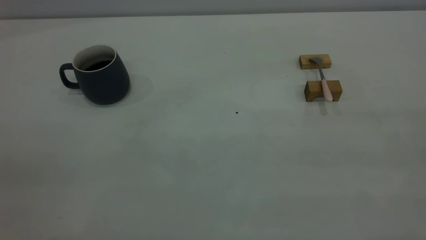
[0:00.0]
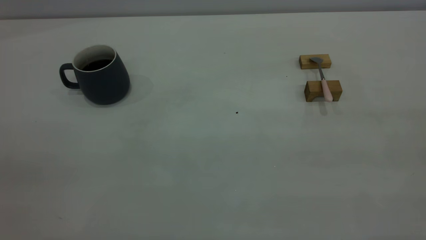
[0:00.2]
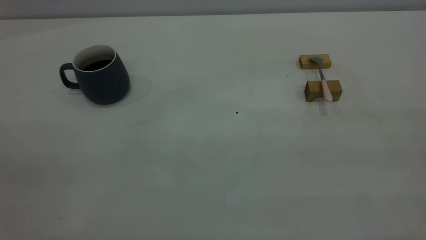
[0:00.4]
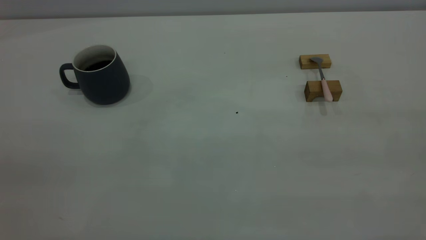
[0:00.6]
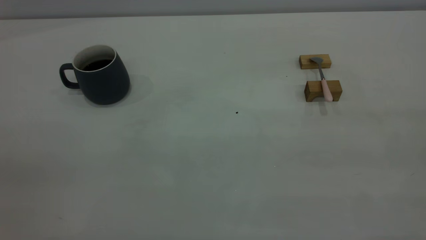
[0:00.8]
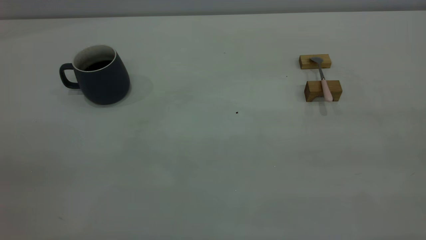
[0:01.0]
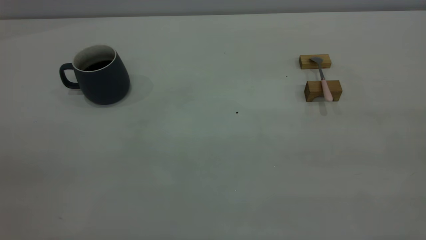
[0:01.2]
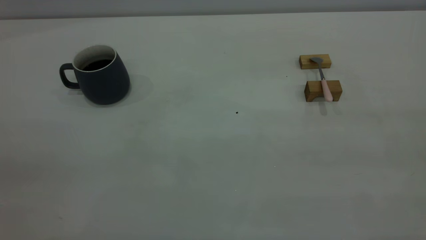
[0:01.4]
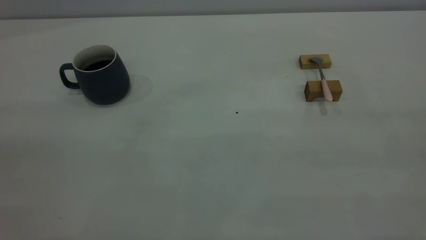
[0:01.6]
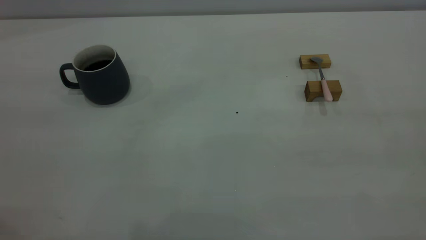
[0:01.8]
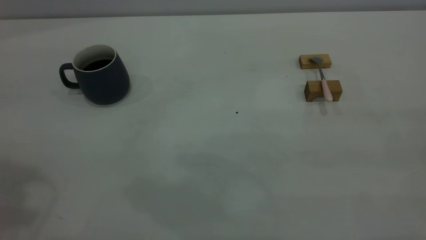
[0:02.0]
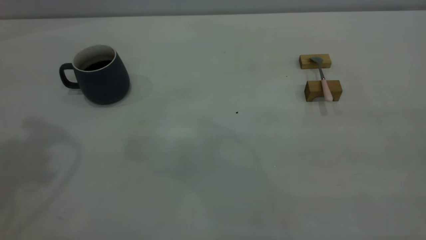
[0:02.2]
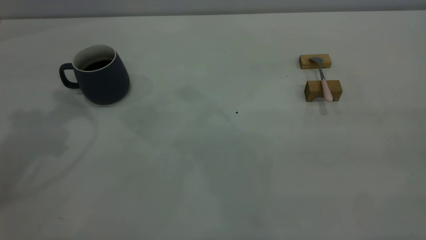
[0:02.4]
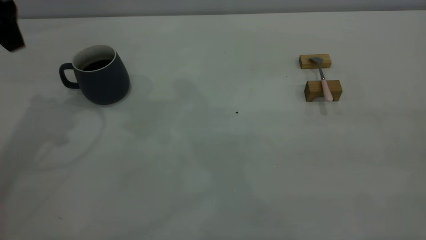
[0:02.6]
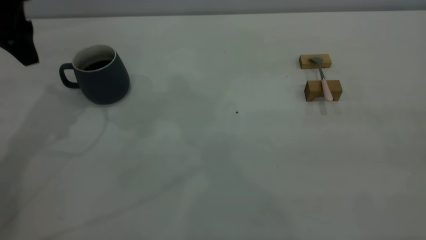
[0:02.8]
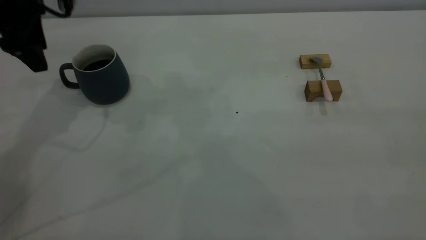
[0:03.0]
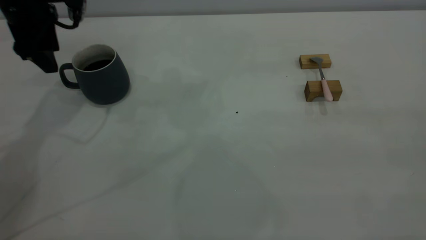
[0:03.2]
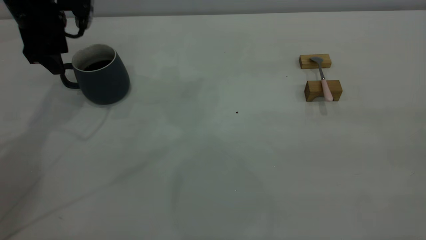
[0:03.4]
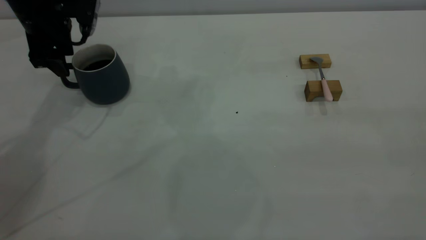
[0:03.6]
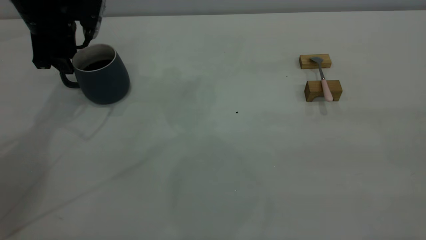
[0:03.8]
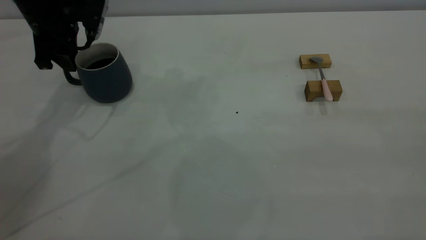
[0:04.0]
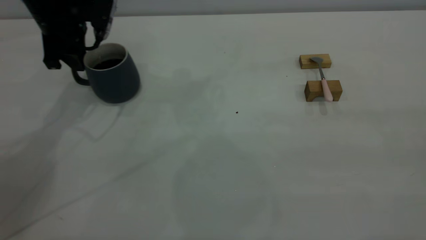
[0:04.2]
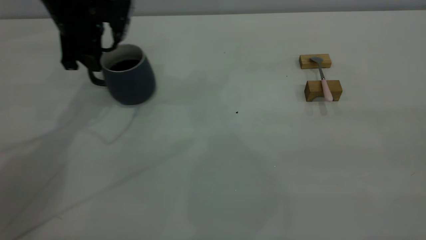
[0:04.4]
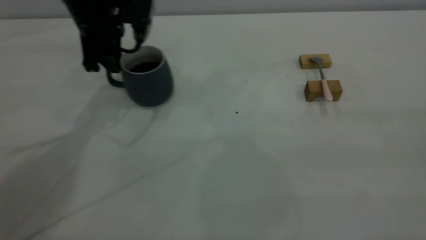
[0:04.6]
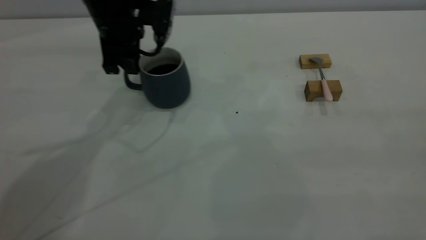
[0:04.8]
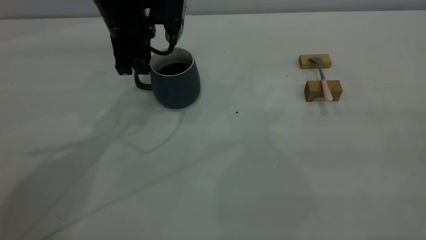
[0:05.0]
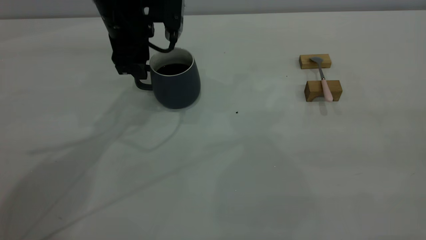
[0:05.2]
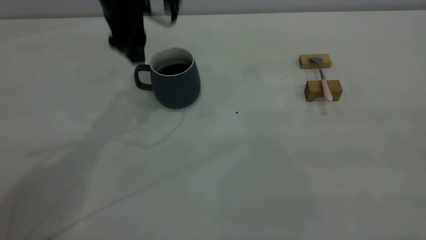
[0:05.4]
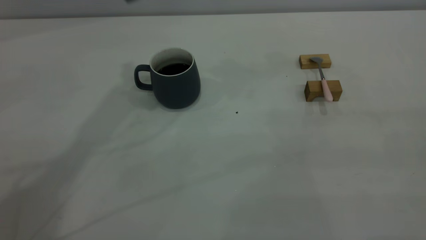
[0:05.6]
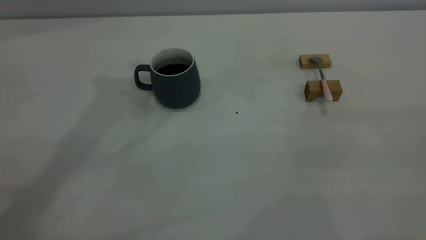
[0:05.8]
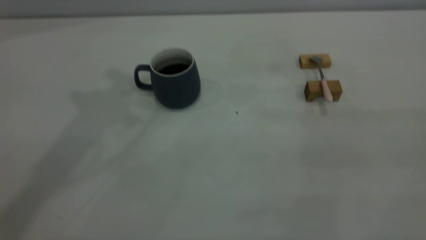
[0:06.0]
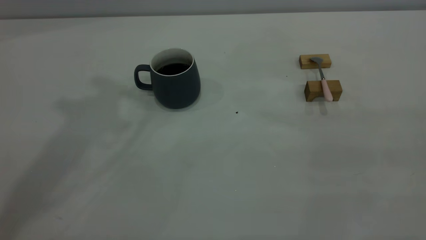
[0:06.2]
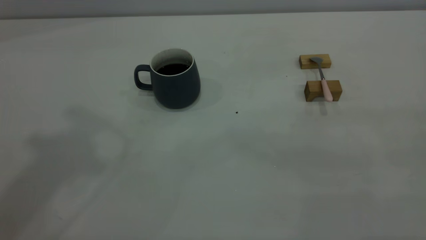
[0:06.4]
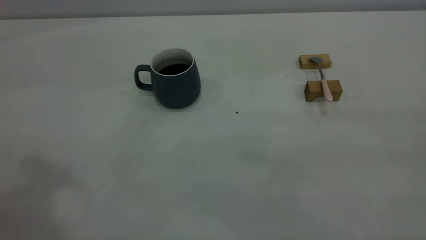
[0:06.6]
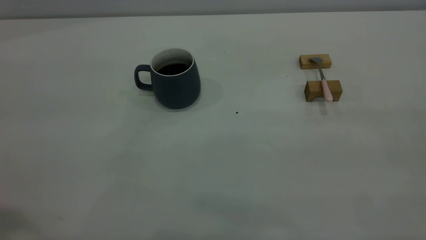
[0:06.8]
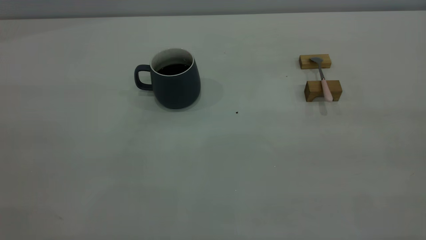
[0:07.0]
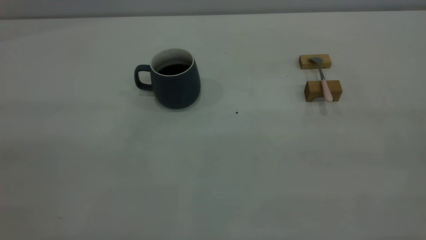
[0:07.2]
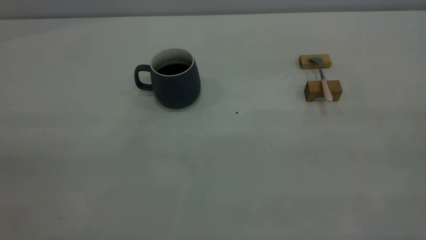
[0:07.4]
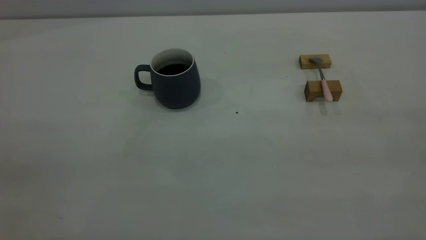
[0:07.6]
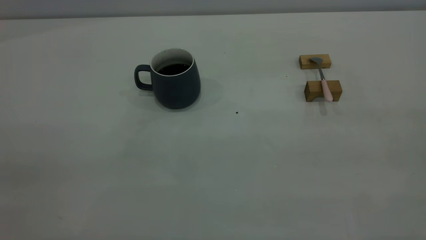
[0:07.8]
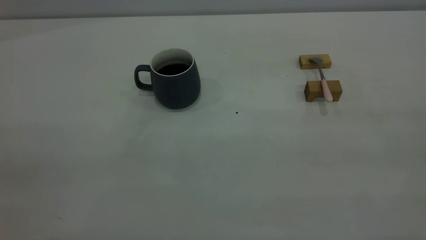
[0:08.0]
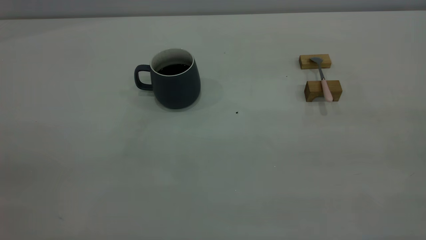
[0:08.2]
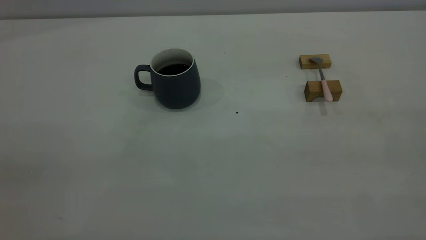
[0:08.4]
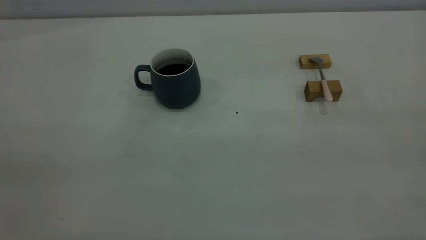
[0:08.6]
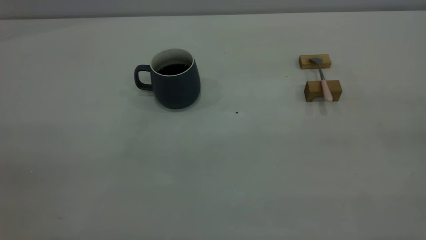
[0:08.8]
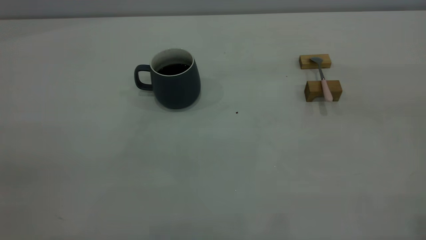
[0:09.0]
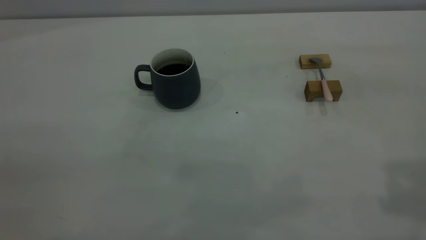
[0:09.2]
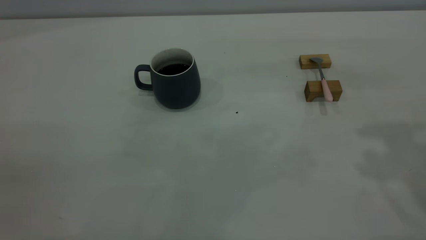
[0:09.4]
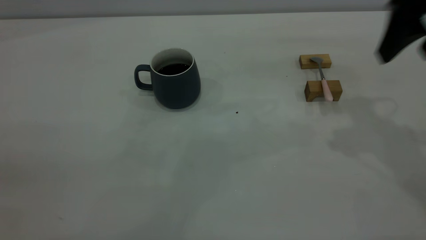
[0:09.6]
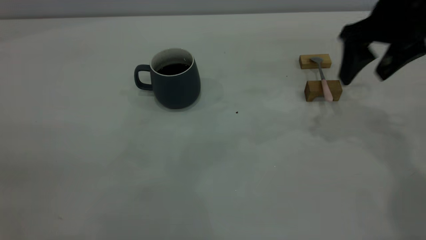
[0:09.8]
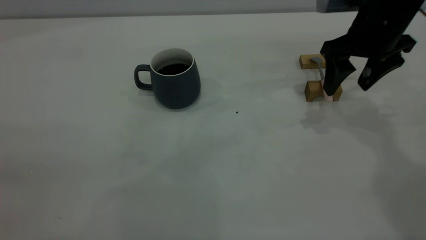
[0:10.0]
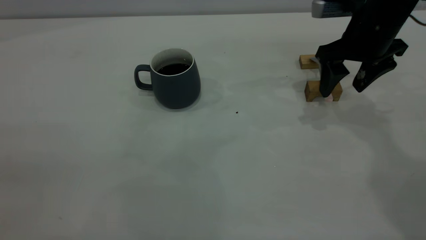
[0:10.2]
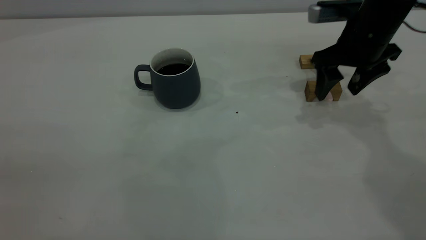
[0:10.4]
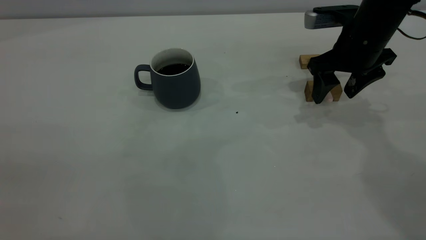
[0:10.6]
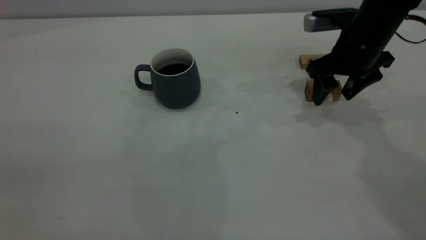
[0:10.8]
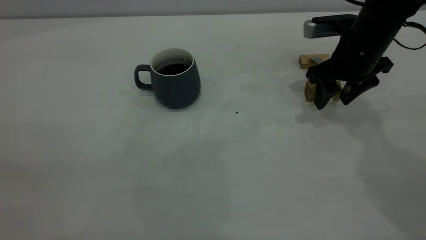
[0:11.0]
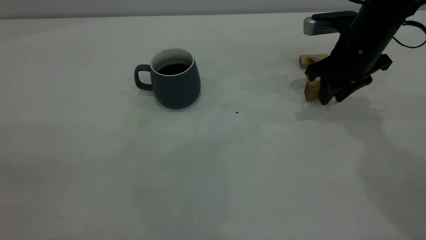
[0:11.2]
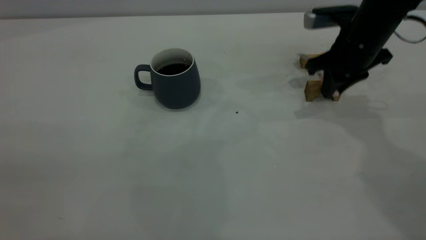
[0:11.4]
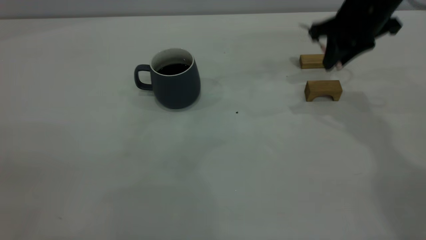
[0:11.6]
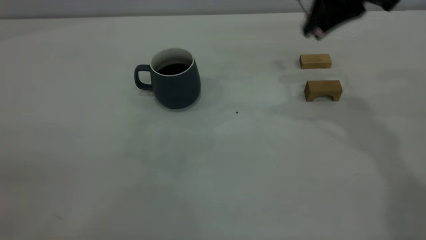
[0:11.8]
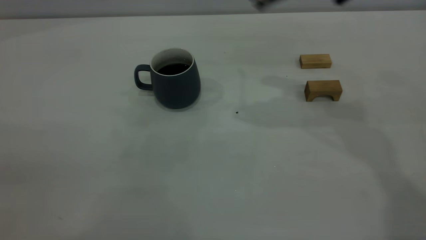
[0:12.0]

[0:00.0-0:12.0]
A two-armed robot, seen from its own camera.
Step, 0:00.0 to 0:05.4: Move the cup with coffee to the center of view.
Step, 0:05.6 to 0:11.6: Pick up the spoon.
0:01.6 to 0:03.0: The left gripper shifts some 40 cm forward and downward, and opens its fingers.
0:03.0 to 0:04.4: The left gripper heads to the right, covering roughly 5 cm, and closes.
0:04.4 to 0:06.0: The left gripper is displaced upward by approximately 30 cm, and opens.
0:09.0 to 0:10.4: The right gripper travels forward and downward by some 40 cm.
0:10.4 to 0:12.0: The right gripper heads upward and to the left, covering some 15 cm, and closes.

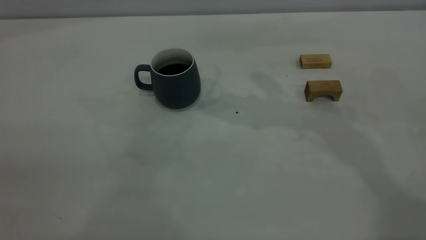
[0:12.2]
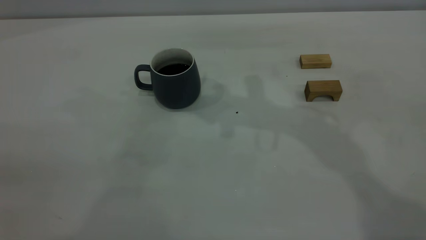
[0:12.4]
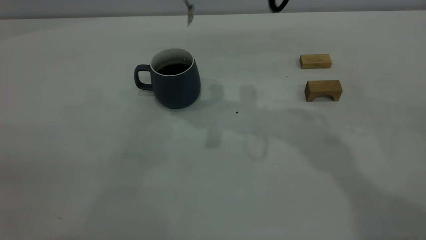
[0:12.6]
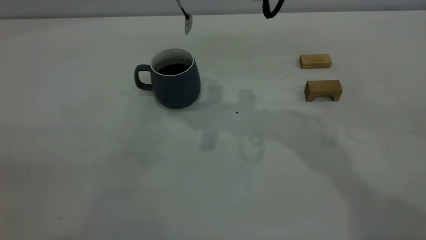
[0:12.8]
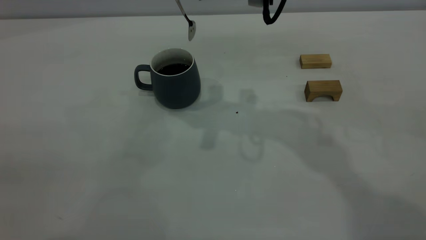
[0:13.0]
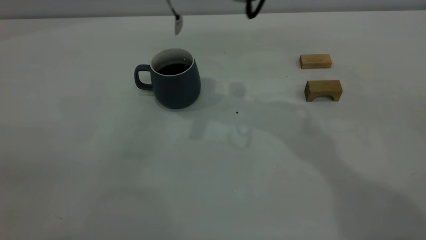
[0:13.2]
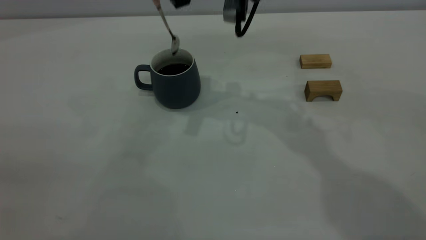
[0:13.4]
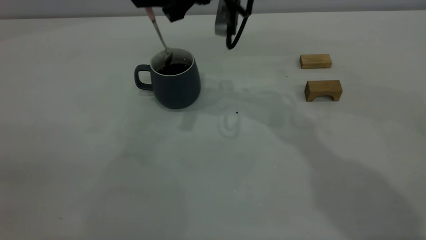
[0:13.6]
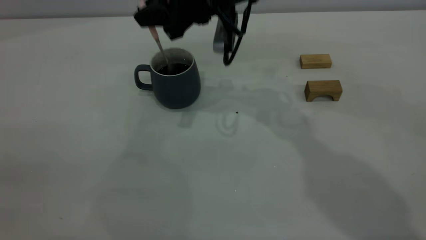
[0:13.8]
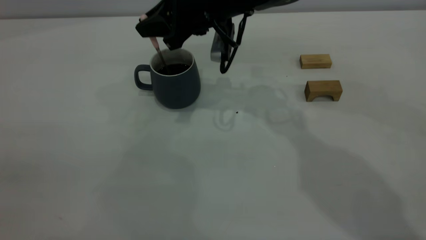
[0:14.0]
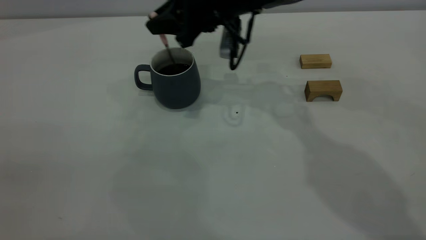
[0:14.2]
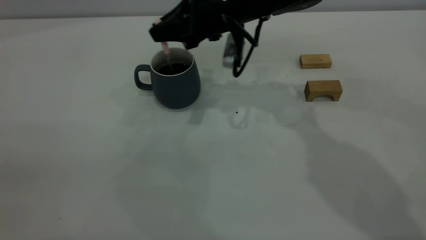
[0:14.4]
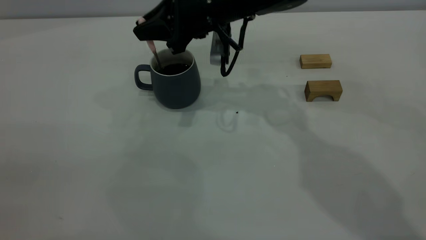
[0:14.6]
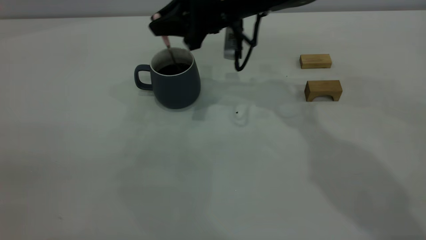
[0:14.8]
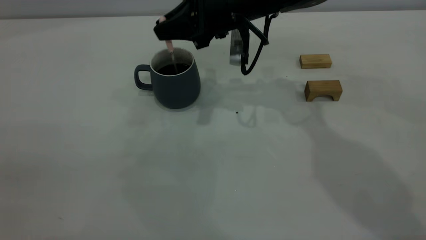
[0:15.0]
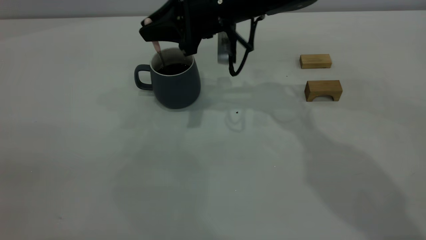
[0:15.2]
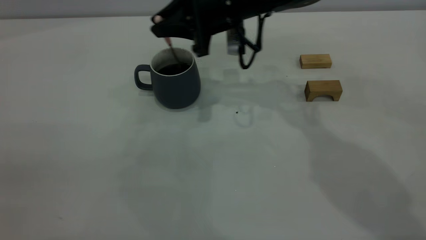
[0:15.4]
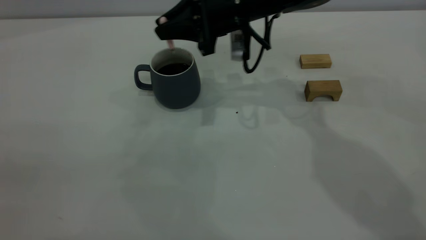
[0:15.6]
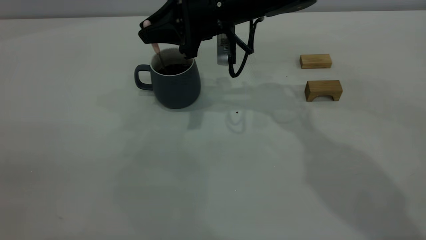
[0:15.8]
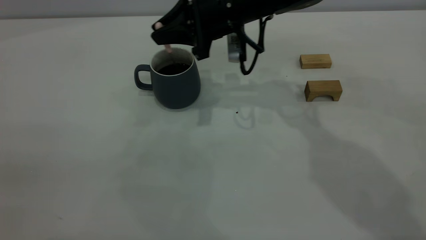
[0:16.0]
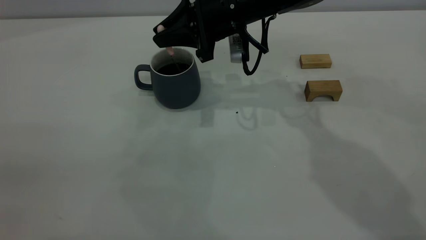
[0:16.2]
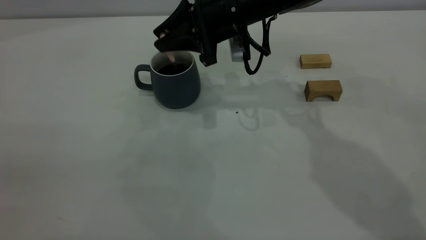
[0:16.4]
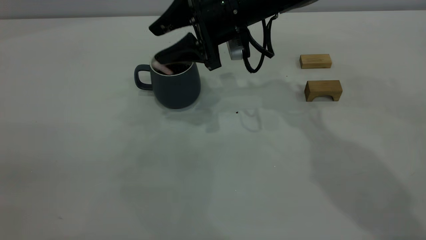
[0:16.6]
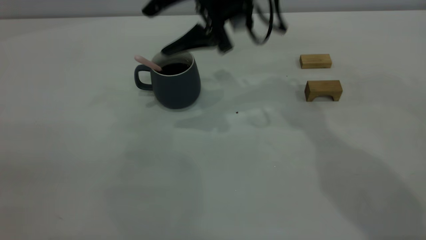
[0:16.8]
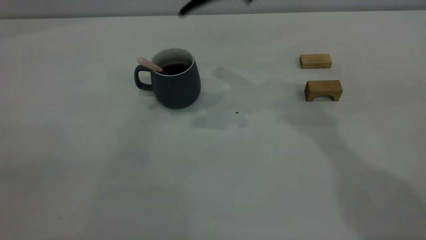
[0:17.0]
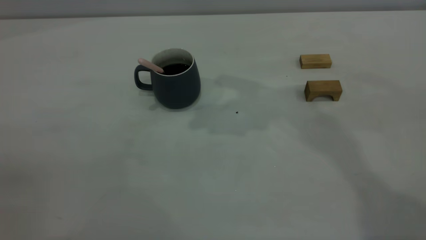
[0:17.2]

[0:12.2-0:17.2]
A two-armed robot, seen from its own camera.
Step, 0:12.2 to 0:16.8: Stir the coffee in the cup.
0:12.2 to 0:13.8: The right gripper moves downward and to the left, approximately 15 cm.
0:13.8 to 0:15.6: The grippers make only small movements.
0:15.6 to 0:17.2: The right gripper goes about 20 cm upward, and opens its fingers.
